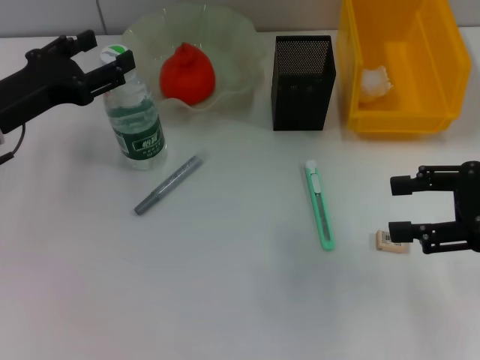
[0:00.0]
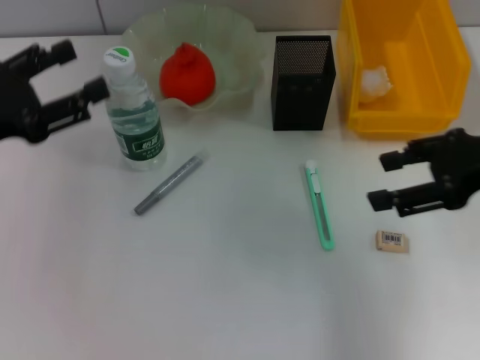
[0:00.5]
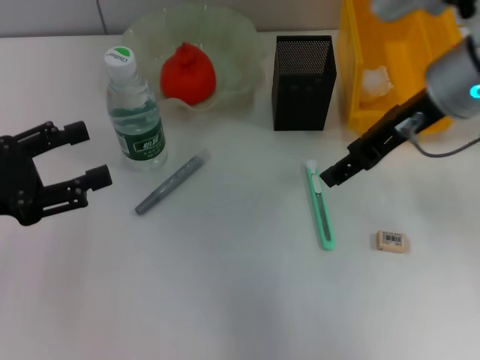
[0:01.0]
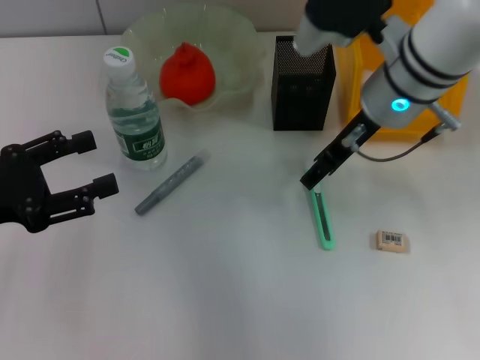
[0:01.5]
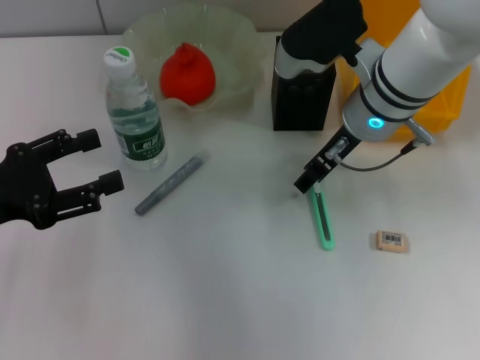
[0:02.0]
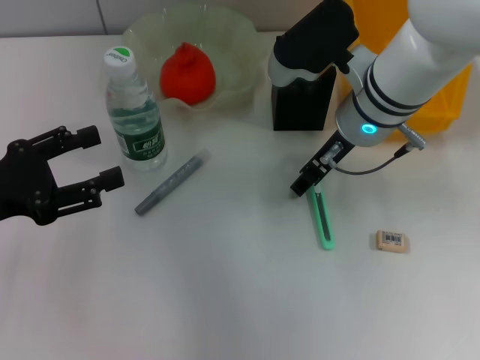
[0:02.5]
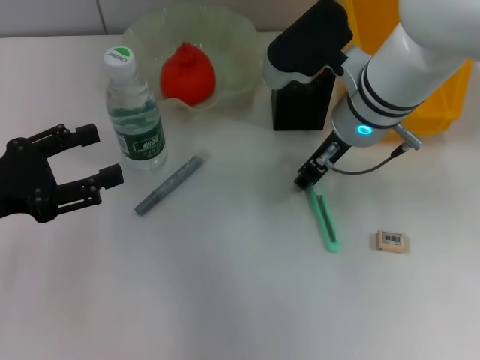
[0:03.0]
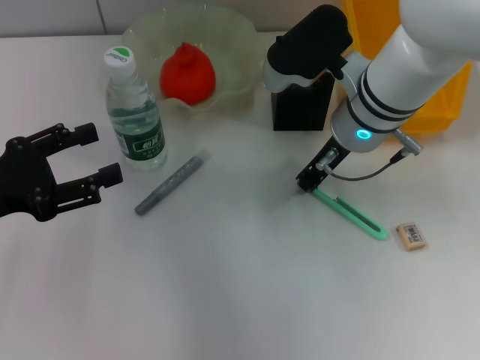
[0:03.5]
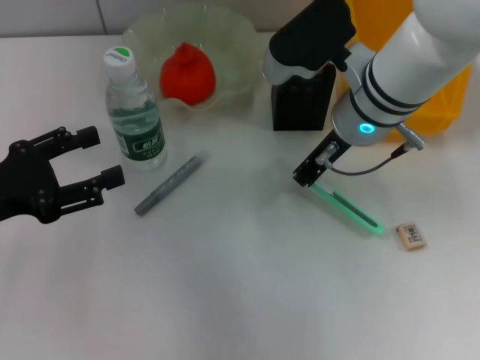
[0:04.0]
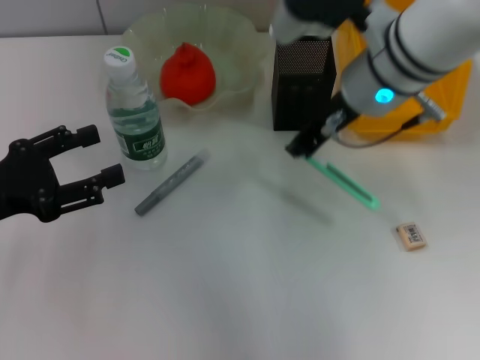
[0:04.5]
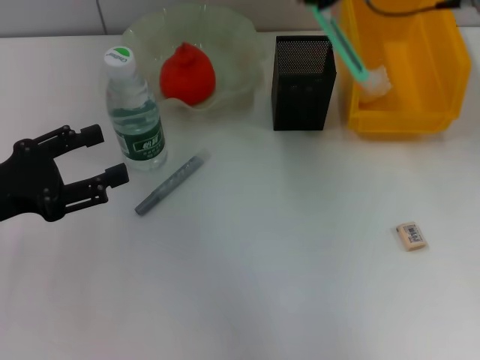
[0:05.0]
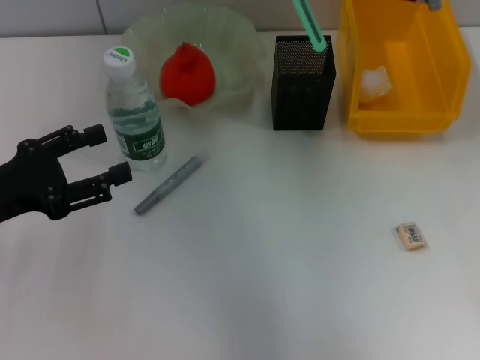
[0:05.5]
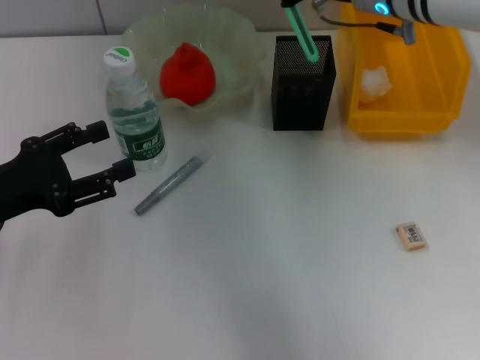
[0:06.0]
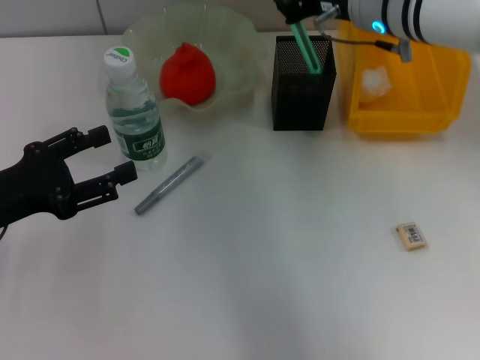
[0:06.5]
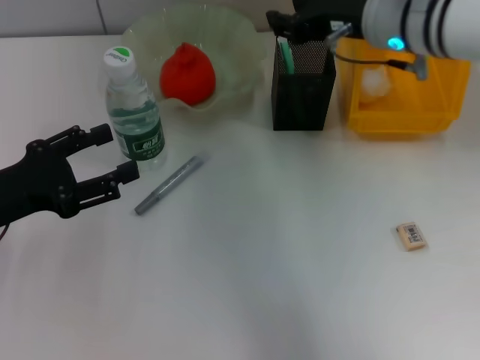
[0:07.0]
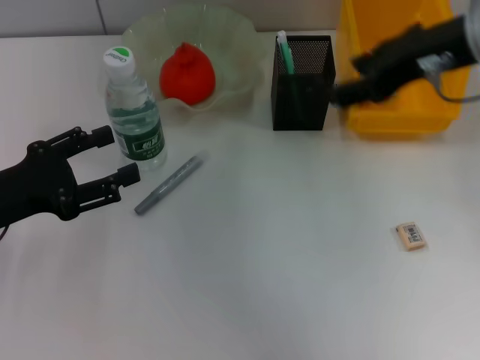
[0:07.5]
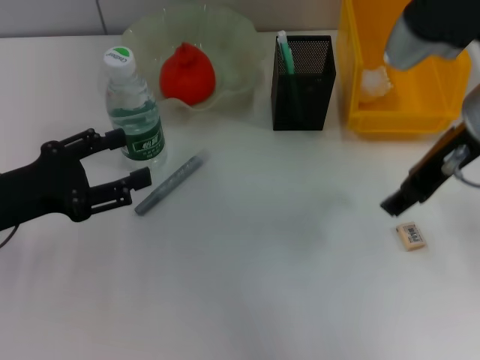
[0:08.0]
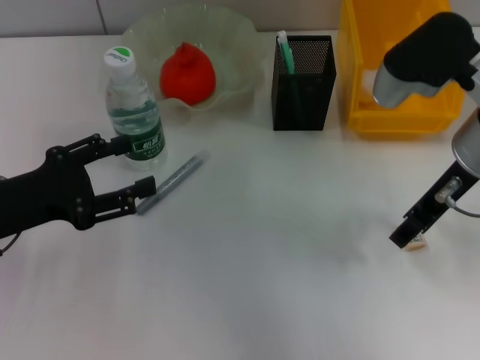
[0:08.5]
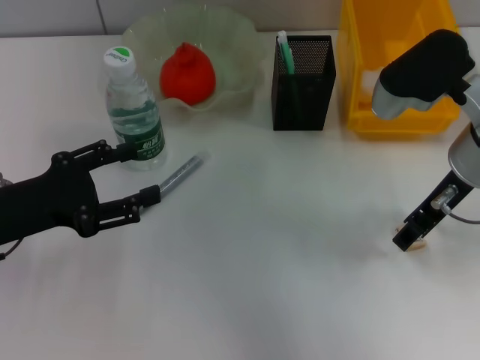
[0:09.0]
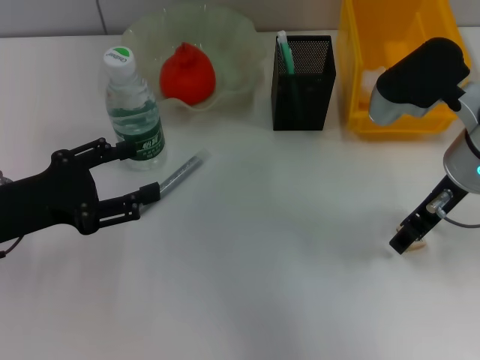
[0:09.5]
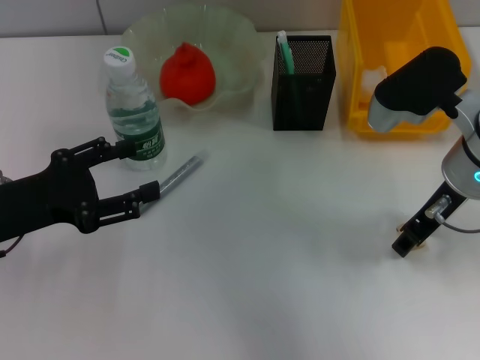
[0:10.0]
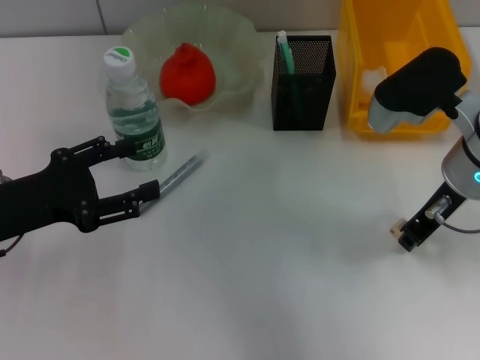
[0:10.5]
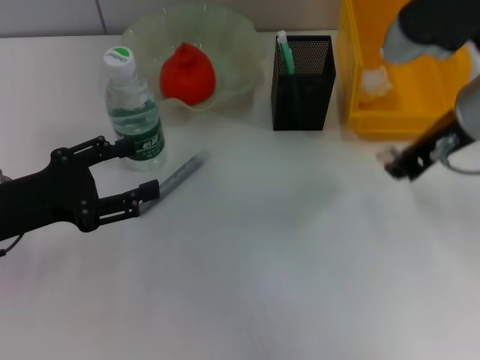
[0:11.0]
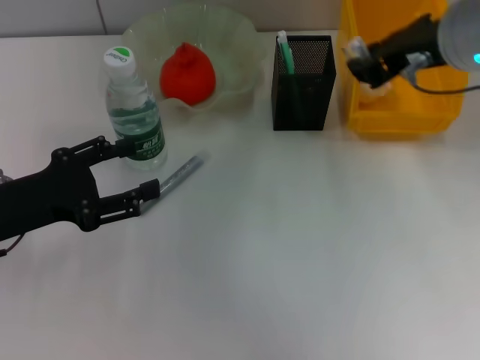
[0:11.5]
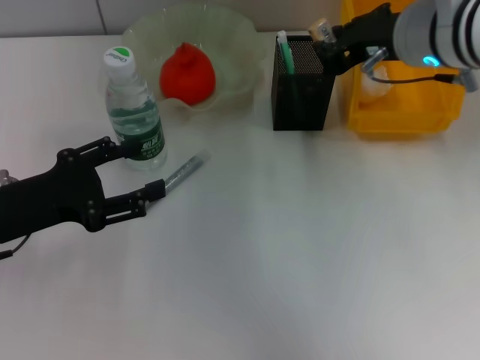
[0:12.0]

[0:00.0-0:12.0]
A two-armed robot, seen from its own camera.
Step, 0:00.5 to 0:03.5: Grab the blue utility knife with the right hand.
Step, 0:04.0 to 0:07.0: Place the blue utility knife into the pen holder with the right hand.
Step, 0:07.5 to 0:10.5: Grab the eraser with the right hand.
0:00.0 to 0:02.0: The left gripper shifts roughly 10 cm backward. The right gripper goes approximately 25 cm to the left and forward.
0:02.0 to 0:04.0: The right gripper closes.
0:04.0 to 0:06.0: The right gripper heads upward, covering about 5 cm.
0:06.0 to 0:08.0: The right gripper shifts roughly 10 cm backward and to the right, and opens.
0:08.0 to 0:10.0: The right gripper shifts approximately 10 cm downward.
0:10.0 to 0:12.0: The right gripper shifts approximately 5 cm upward, and closes.

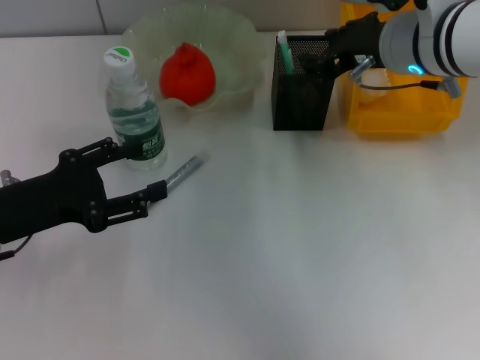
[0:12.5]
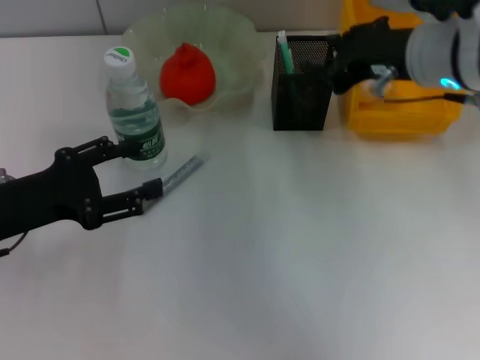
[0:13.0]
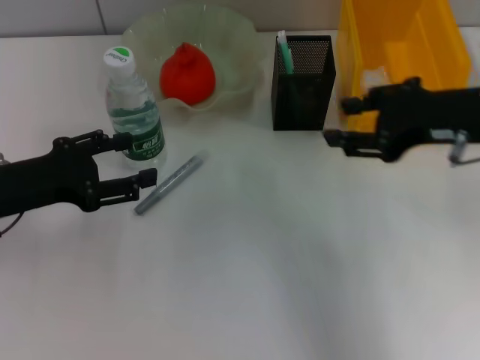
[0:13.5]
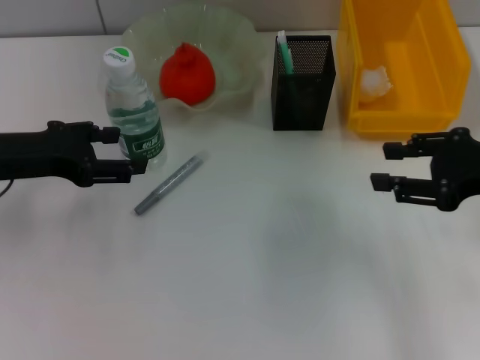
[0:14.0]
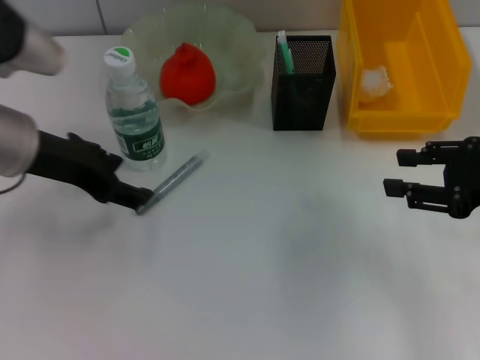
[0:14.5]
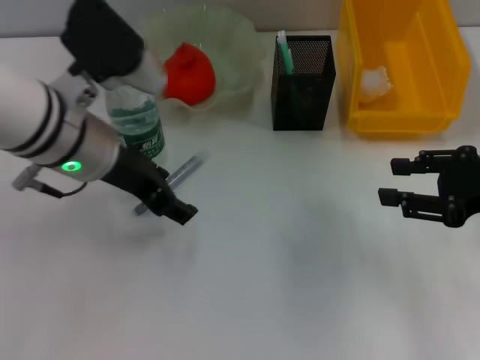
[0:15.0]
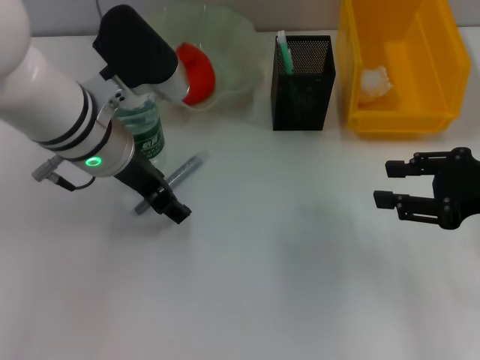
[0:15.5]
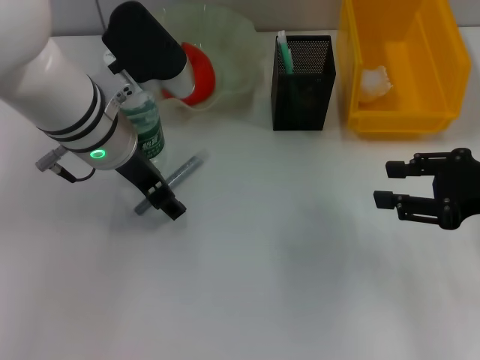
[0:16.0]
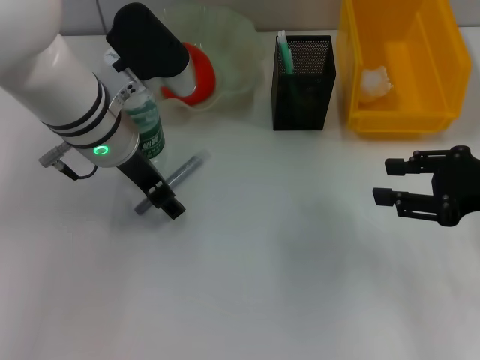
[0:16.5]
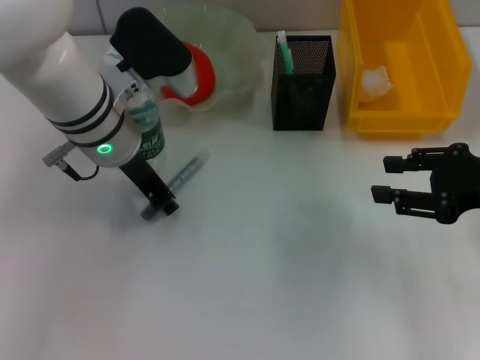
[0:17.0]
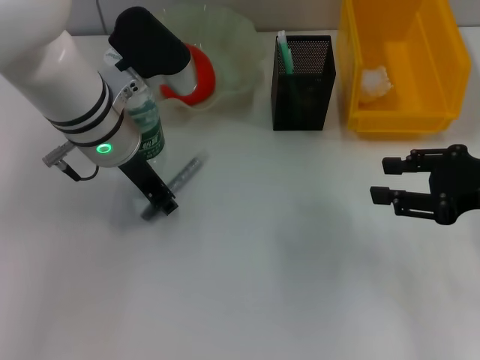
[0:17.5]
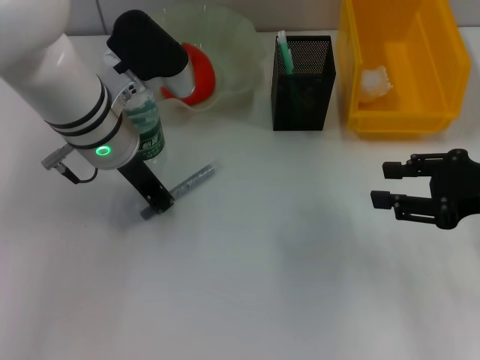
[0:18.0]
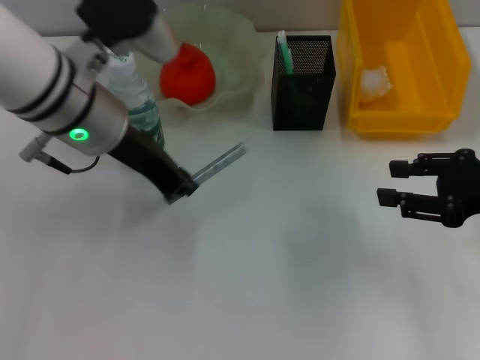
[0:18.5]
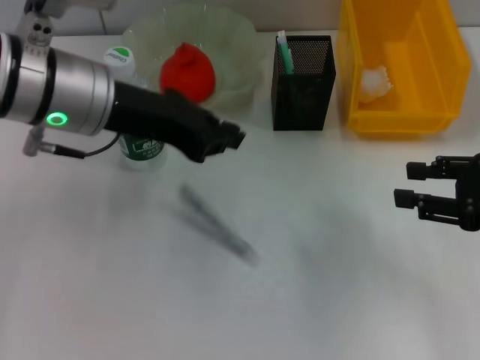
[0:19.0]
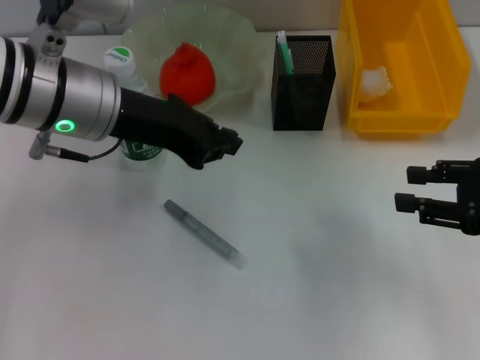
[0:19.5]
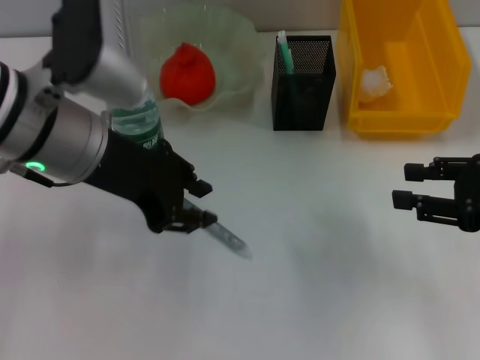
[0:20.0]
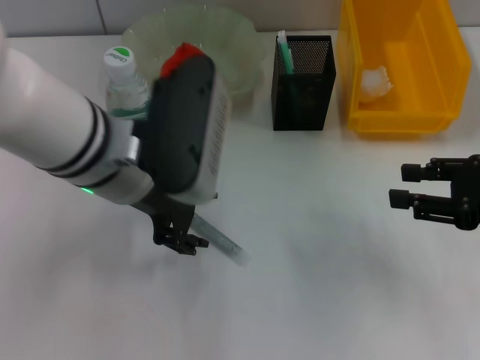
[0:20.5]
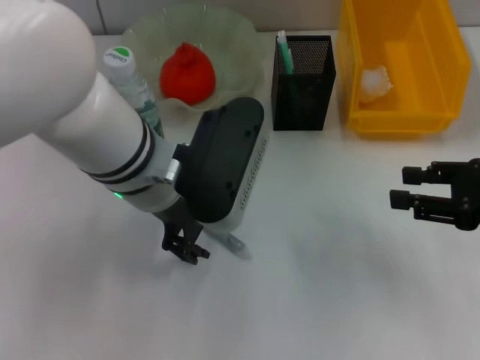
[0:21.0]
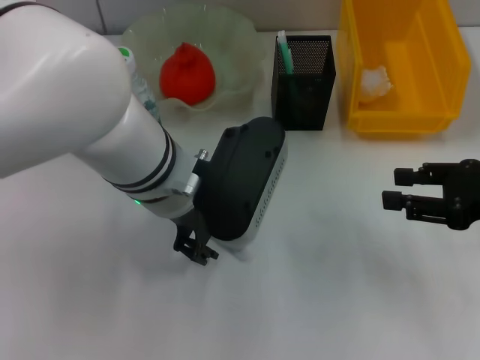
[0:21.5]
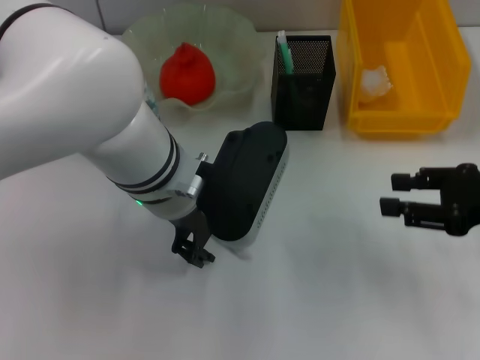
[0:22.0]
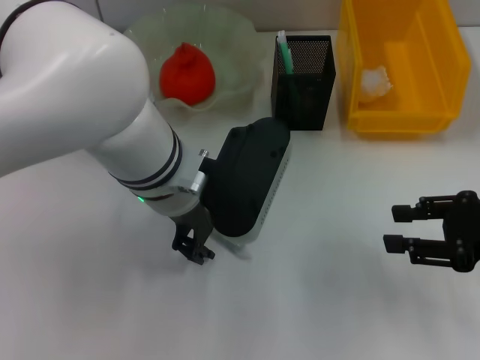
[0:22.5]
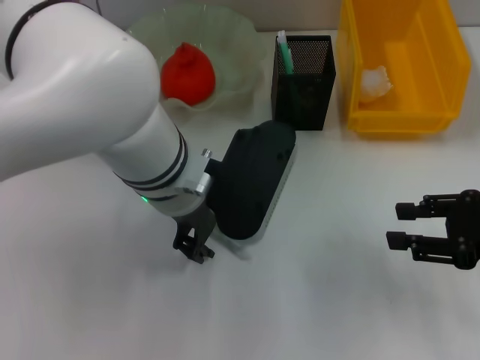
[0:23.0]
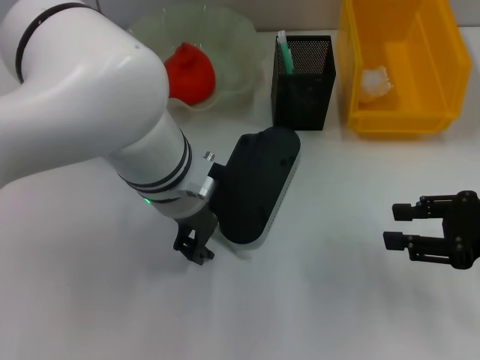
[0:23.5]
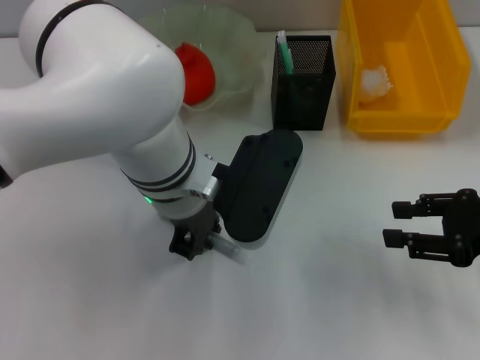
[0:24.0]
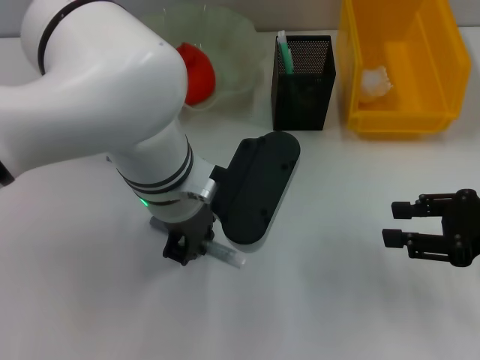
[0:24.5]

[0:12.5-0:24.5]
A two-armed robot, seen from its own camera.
0:12.5 to 0:14.5: The right gripper is displaced to the right and backward by roughly 20 cm. The left gripper is displaced upward, forward and to the right by some 10 cm.
0:14.5 to 0:16.5: The left gripper moves to the right, about 10 cm.
0:16.5 to 0:18.5: The left gripper closes up.
0:18.5 to 0:20.5: The left gripper changes place by some 5 cm, and opens up.
0:20.5 to 0:22.5: The left gripper shifts by about 5 cm.
0:22.5 to 0:24.5: The left gripper closes up.

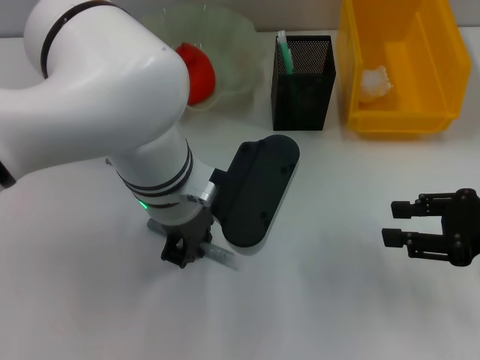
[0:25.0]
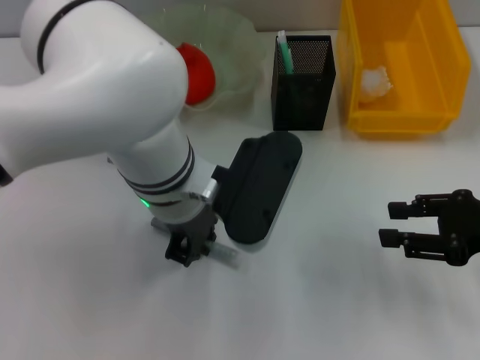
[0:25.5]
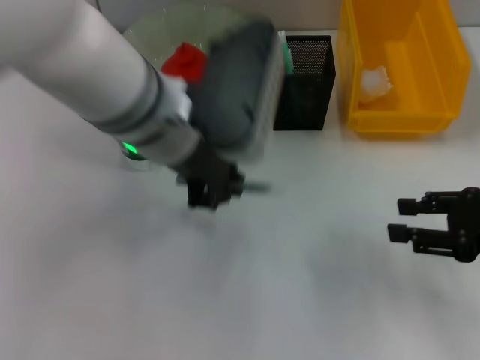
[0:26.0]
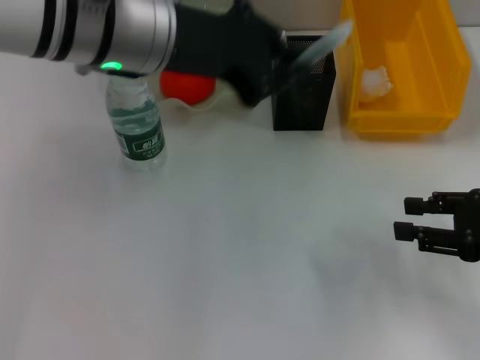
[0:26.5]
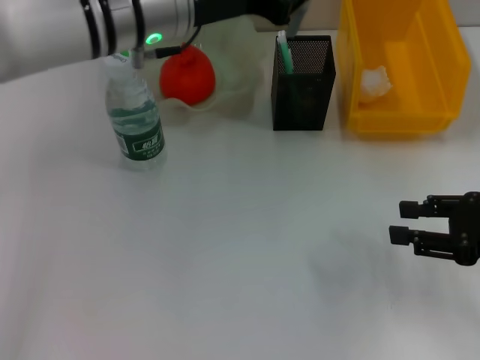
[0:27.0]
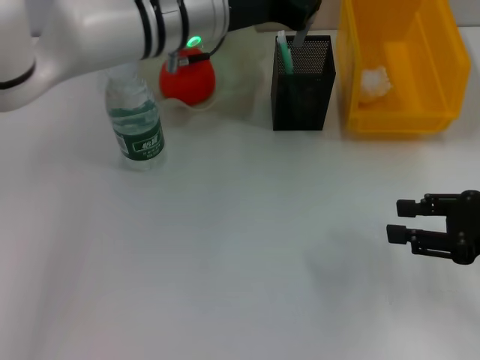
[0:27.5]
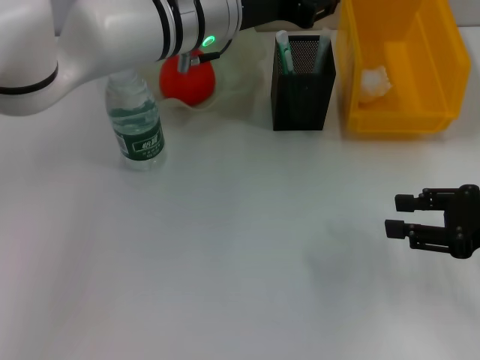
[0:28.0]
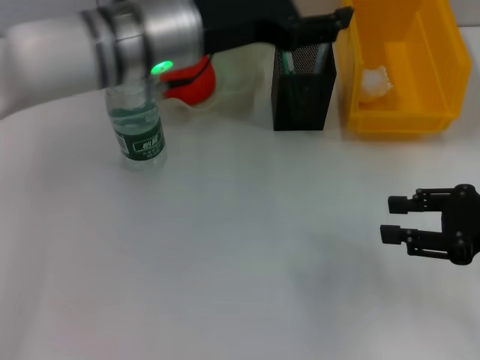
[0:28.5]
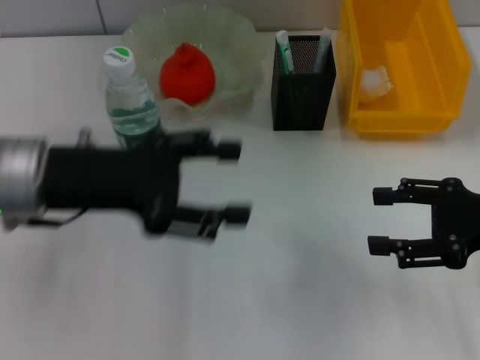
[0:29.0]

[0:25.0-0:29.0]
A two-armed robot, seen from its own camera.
Step, 0:25.0 to 0:28.0: Place the gray glue into the pen holder with the left hand.
0:25.0 to 0:27.0: The left gripper heads forward and upward, covering roughly 10 cm.
0:27.0 to 0:29.0: The left gripper heads to the left and backward, covering some 15 cm, and opens its fingers.
